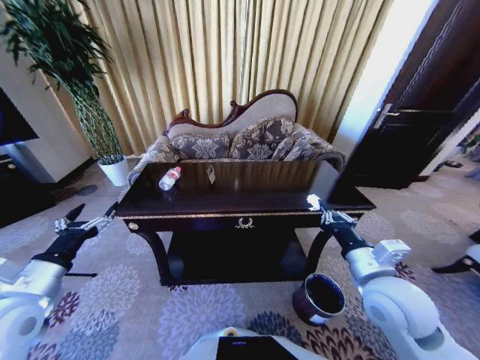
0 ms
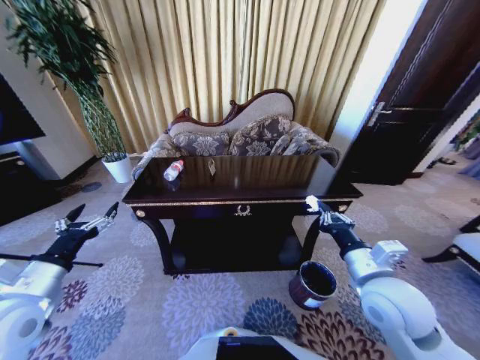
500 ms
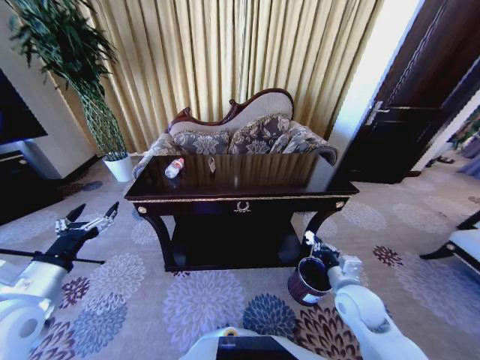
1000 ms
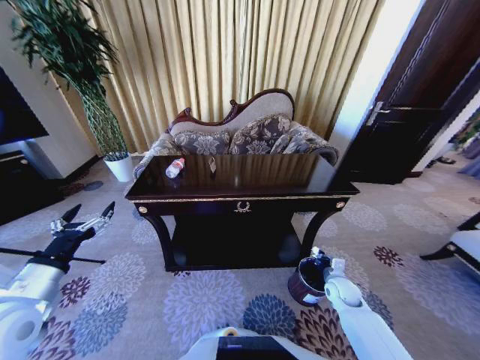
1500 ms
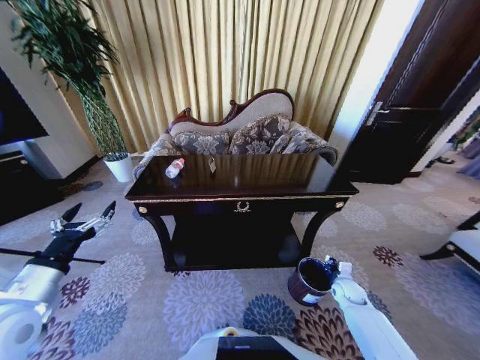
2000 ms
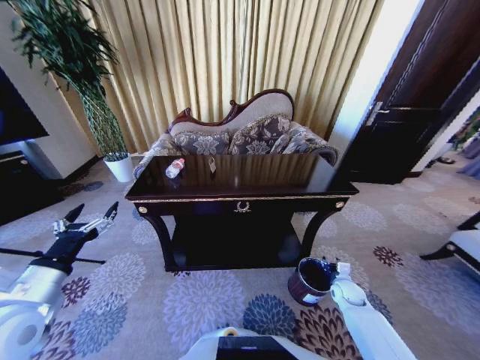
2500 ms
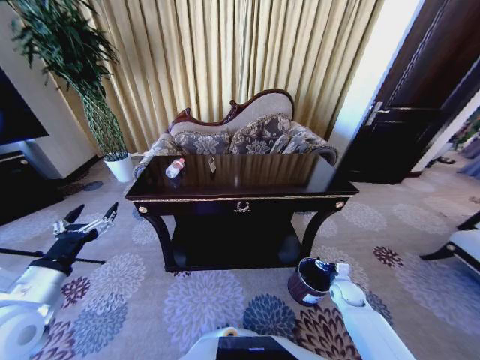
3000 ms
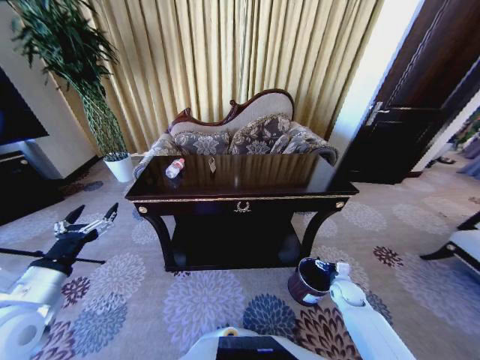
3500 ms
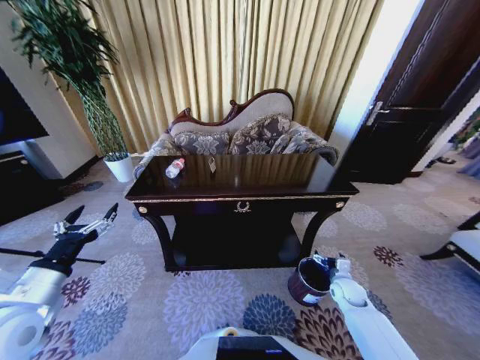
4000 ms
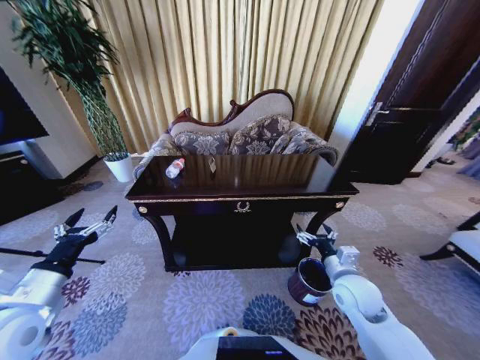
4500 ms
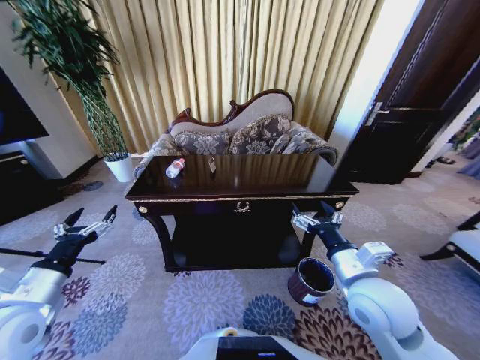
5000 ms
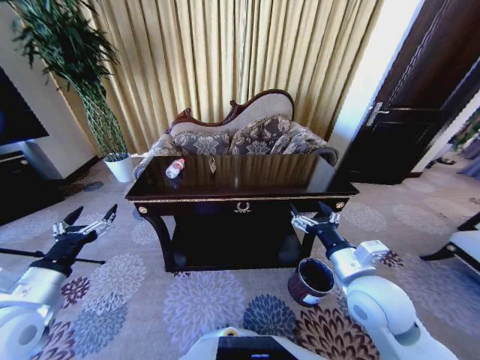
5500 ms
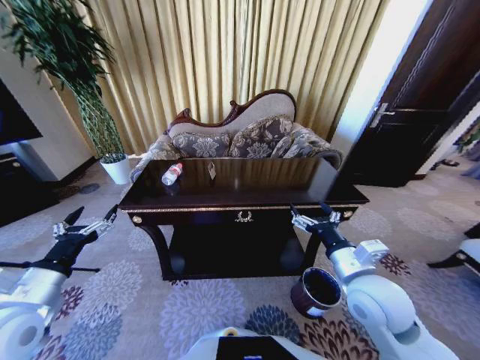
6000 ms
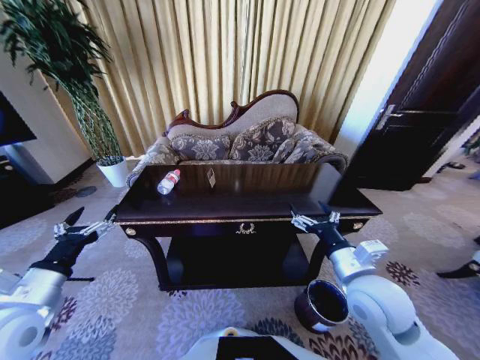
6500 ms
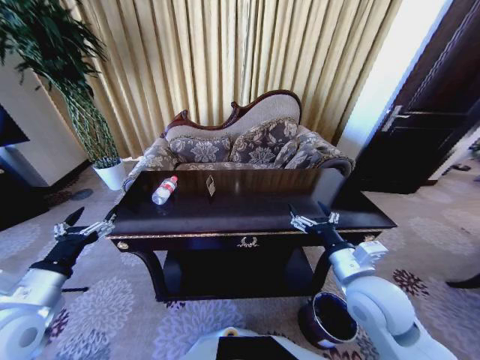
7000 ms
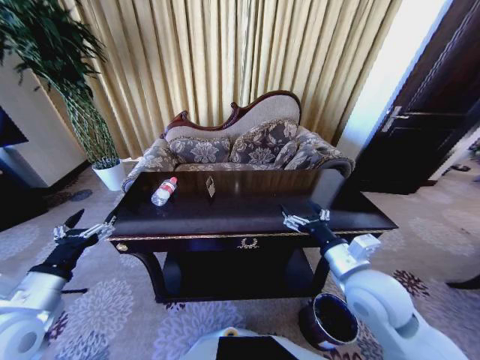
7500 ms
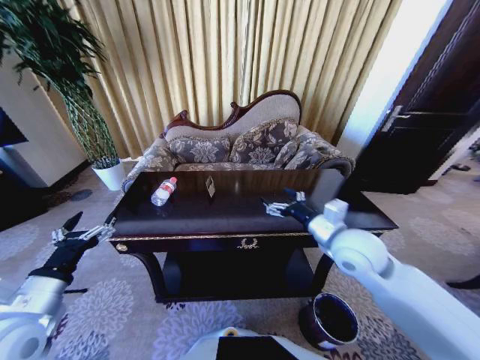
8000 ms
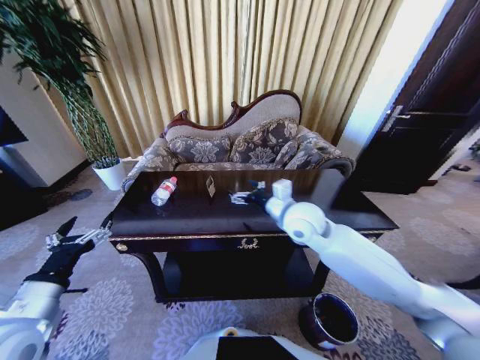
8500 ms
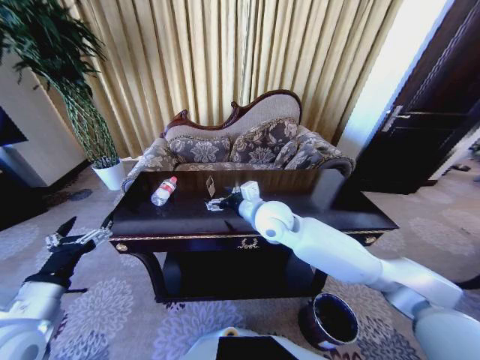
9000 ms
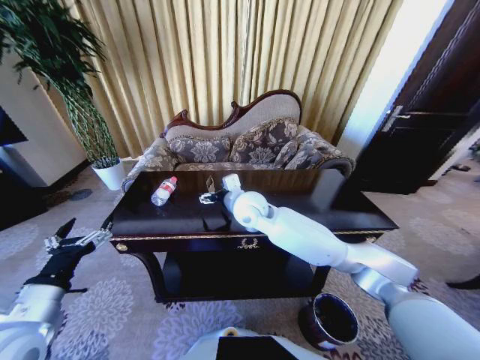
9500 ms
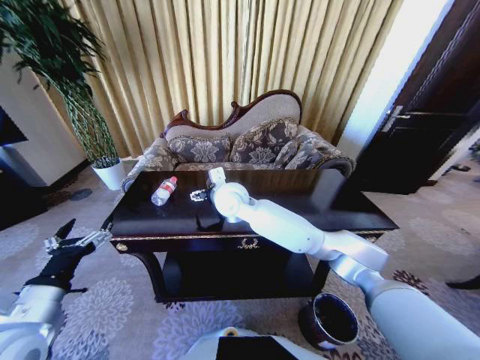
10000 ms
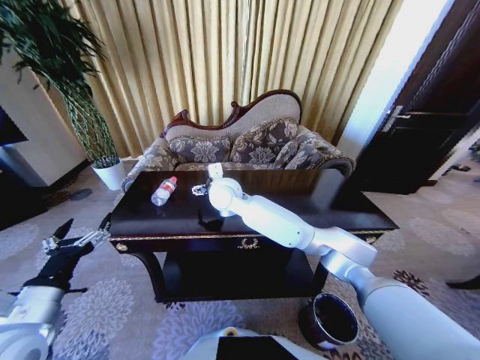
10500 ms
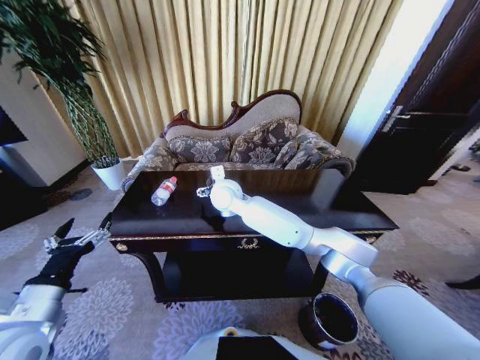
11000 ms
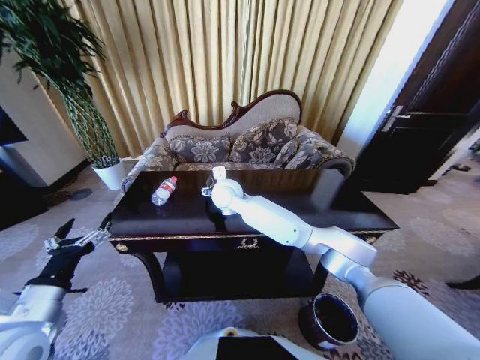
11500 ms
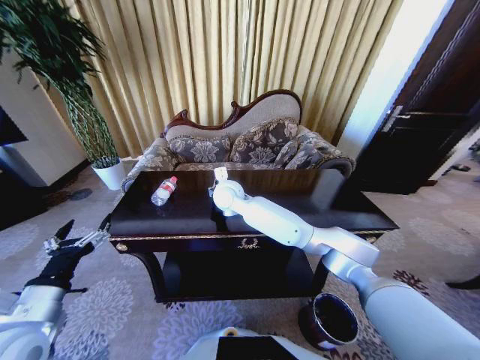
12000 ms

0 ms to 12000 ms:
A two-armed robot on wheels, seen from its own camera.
Task of the whole recording: Move to the front of the table and place the trash on the table into the trash bin.
0 ms to 2000 ms: The right gripper moves downward and to the right, approximately 35 cm.
2000 ms to 4000 ms: The right gripper opens up.
4000 ms to 6000 ms: The right gripper moves upward and to the left, some 30 cm.
6000 ms to 8000 ms: The right gripper shifts about 10 cm forward.
8000 ms to 10000 ms: The right gripper goes approximately 30 cm to the left and forward.
10000 ms to 12000 ms: The right gripper moves some 5 cm, and closes its fingers.

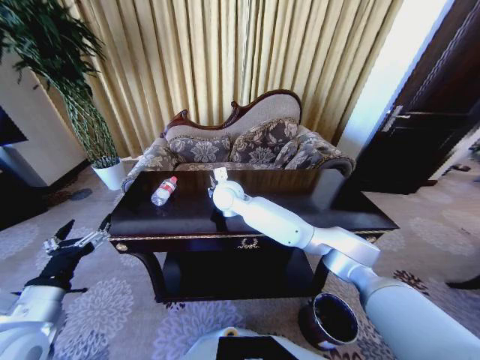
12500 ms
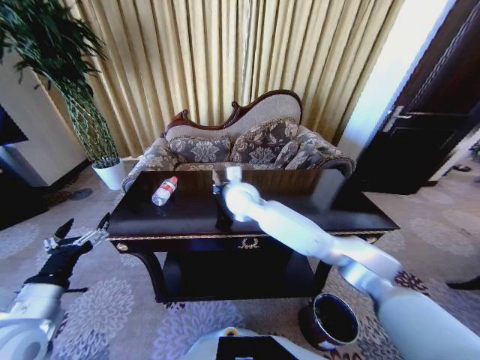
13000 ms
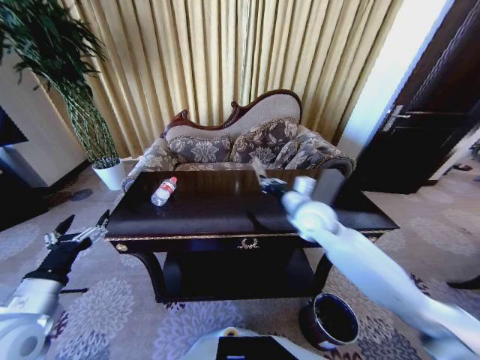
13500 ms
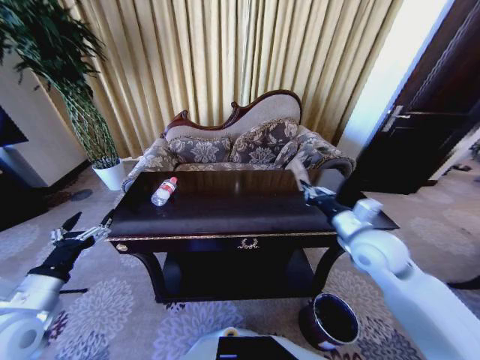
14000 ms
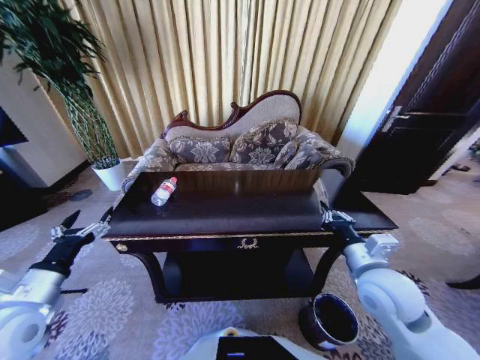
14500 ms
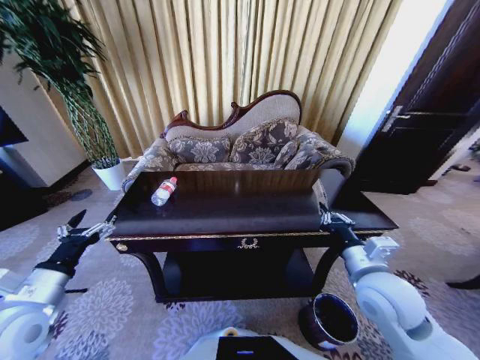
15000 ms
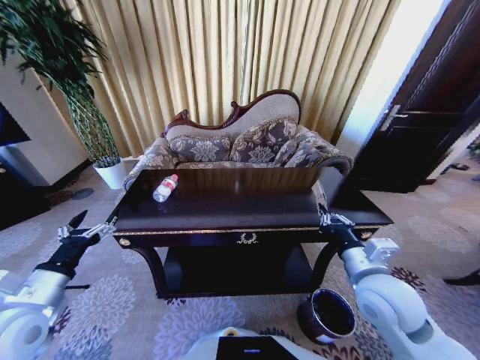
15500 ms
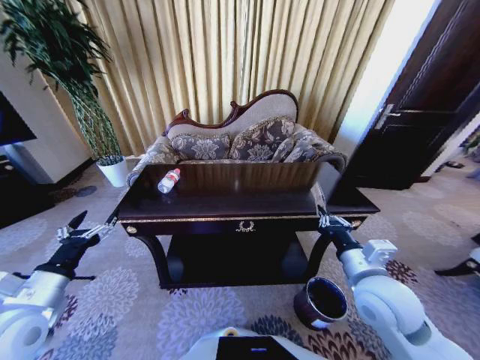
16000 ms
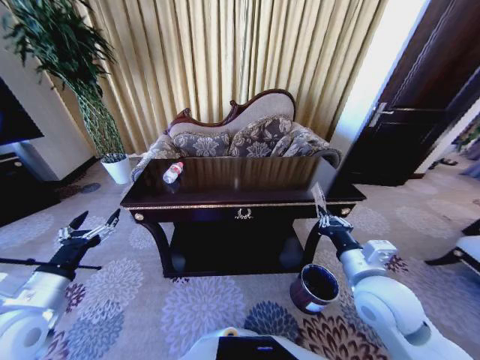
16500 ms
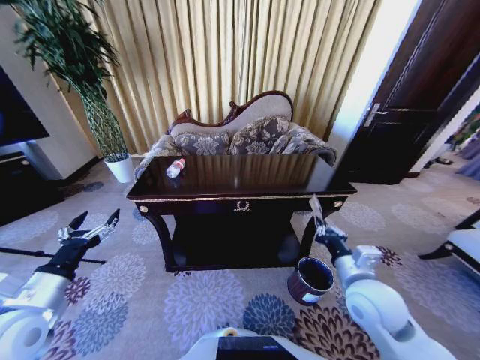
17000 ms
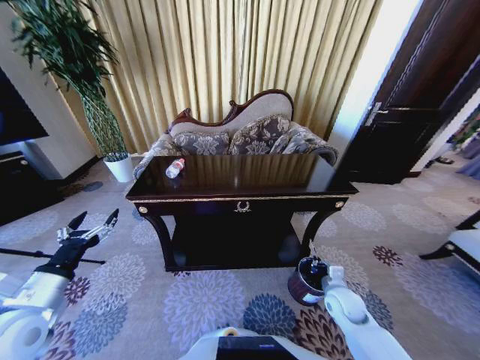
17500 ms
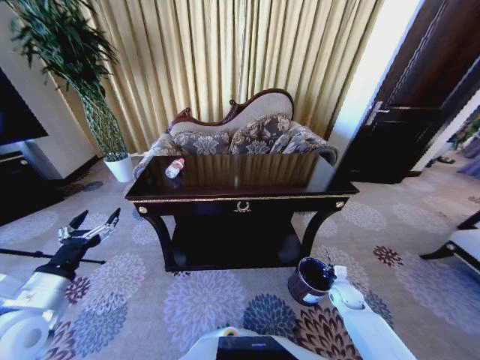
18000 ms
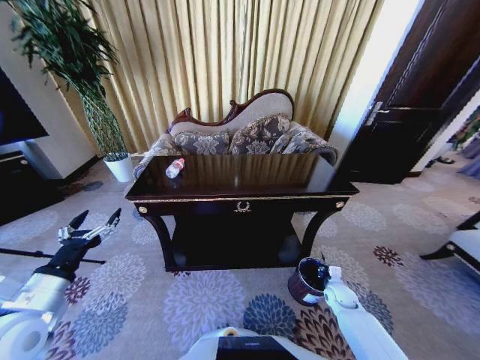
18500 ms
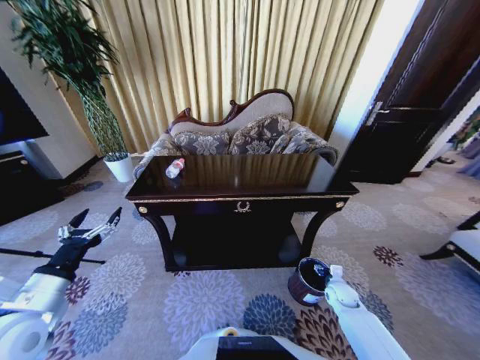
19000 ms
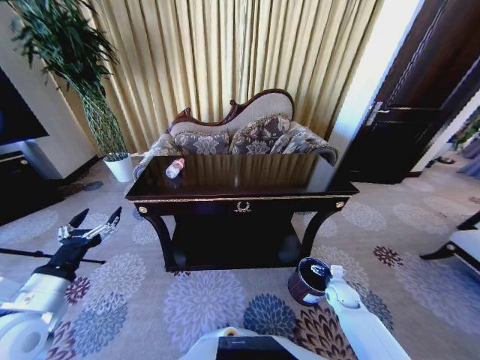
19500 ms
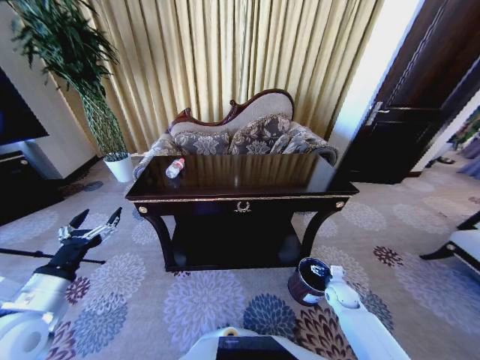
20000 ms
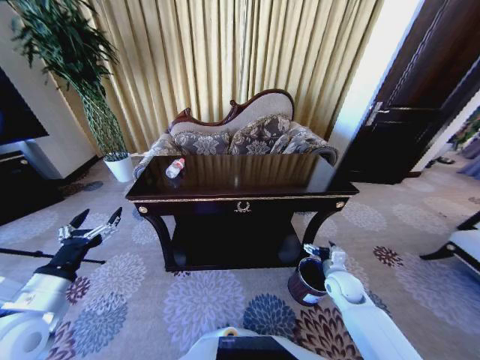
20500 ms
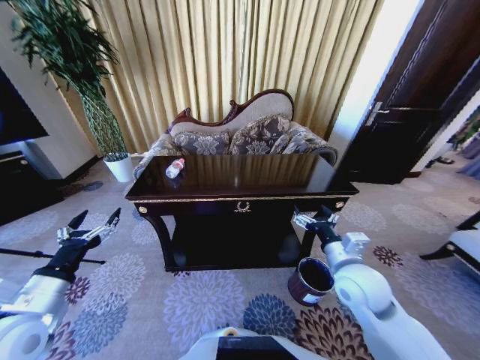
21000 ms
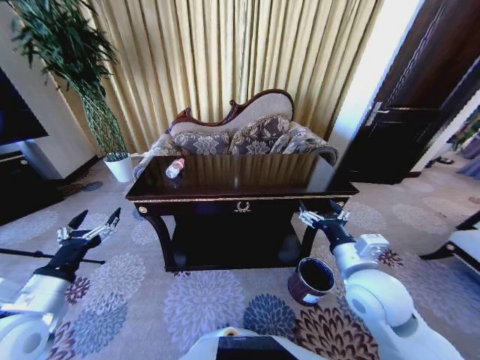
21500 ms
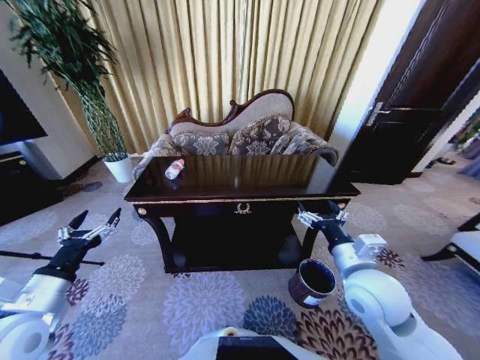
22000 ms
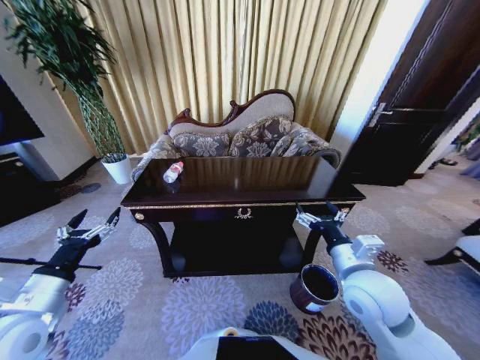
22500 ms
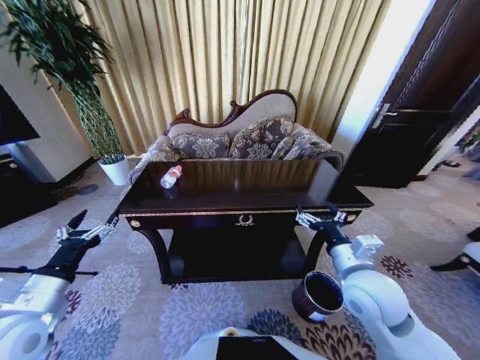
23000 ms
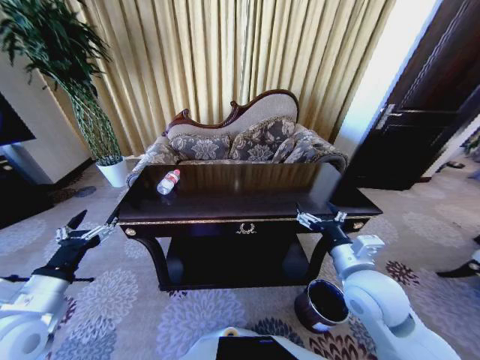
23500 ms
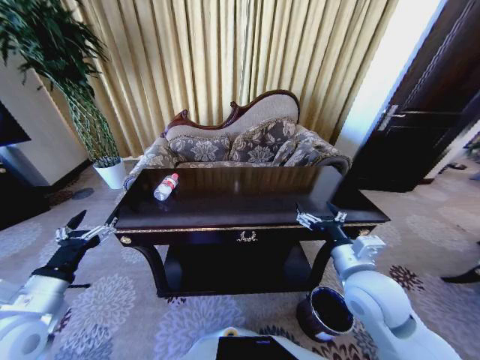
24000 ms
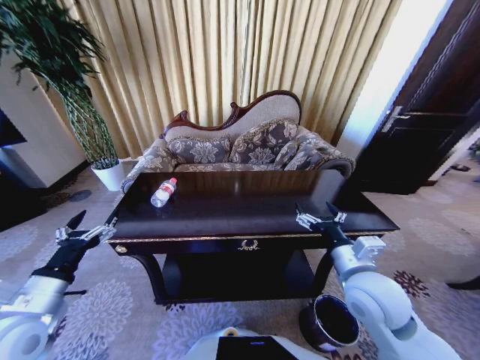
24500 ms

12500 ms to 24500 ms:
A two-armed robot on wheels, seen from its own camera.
Task of the whole recording: Move to the front of the table and place the trash on the table into the trash bin.
12500 ms to 14500 ms: The right gripper moves to the right and backward, about 40 cm.
16500 ms to 18500 ms: The right gripper heads downward, covering about 30 cm.
18500 ms to 20500 ms: The right gripper travels upward by approximately 10 cm, and opens up.
20500 ms to 22500 ms: The right gripper travels upward and to the left by about 25 cm.

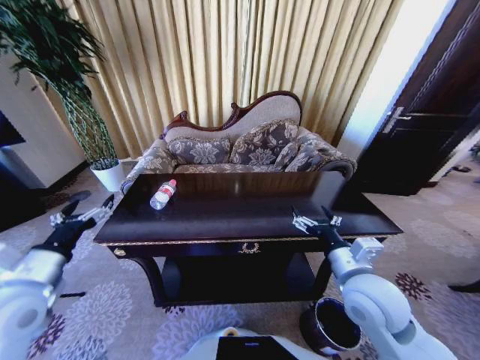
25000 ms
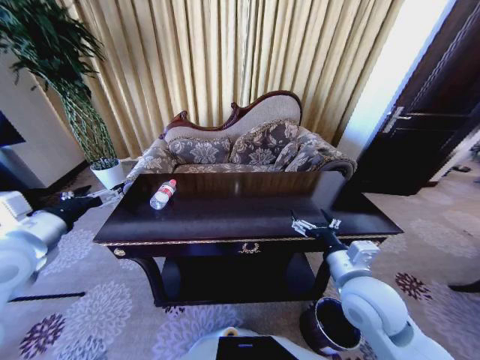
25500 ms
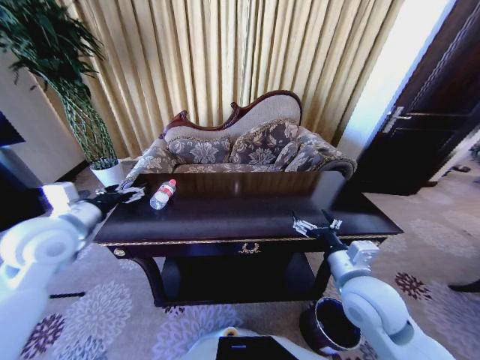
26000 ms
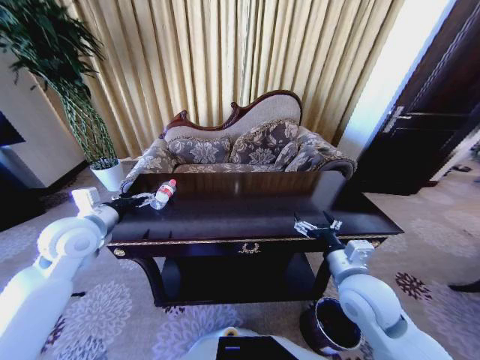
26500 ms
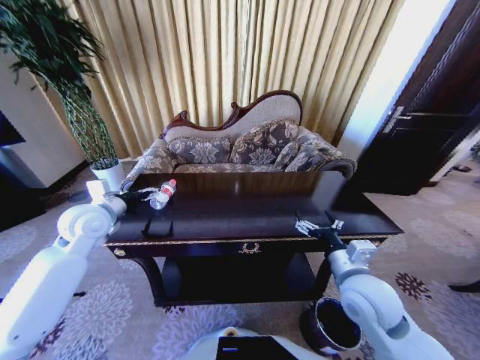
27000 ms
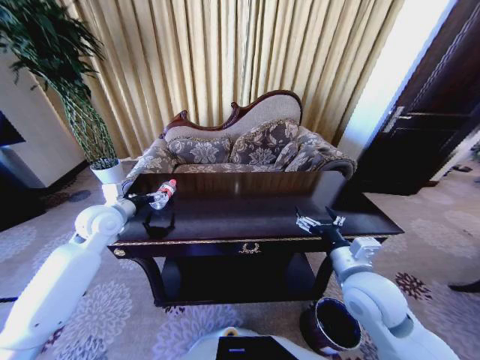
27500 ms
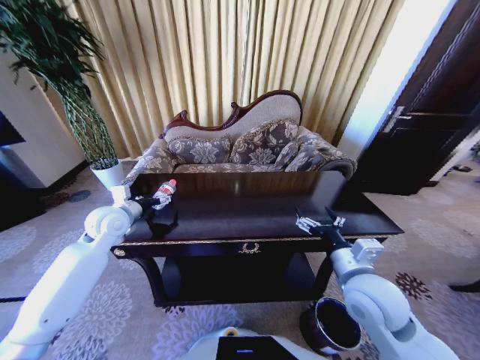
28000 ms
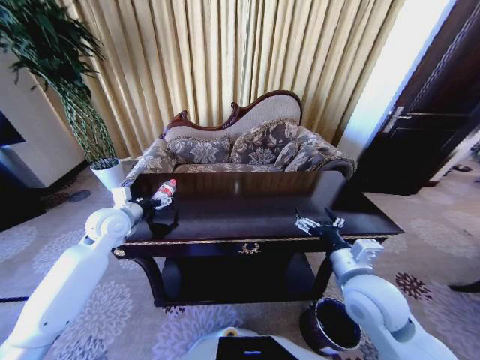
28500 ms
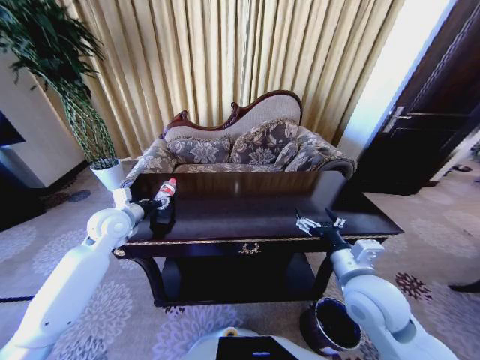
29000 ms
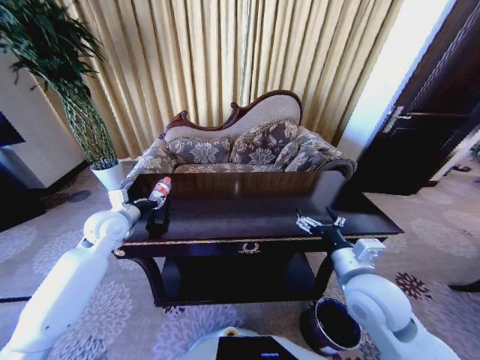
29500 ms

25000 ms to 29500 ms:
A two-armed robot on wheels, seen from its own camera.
Task of the whole recording: Move to the front of the table and place the trash on the table into the trash bin.
25000 ms to 27000 ms: The left gripper shifts about 20 cm forward.
27000 ms to 29500 ms: The left gripper ends up some 5 cm from where it was, and closes.
